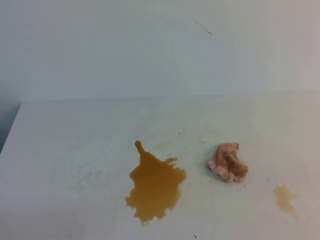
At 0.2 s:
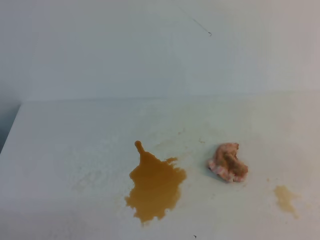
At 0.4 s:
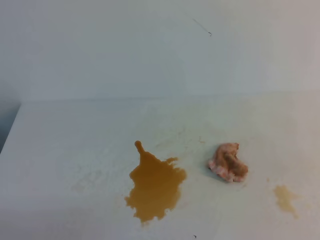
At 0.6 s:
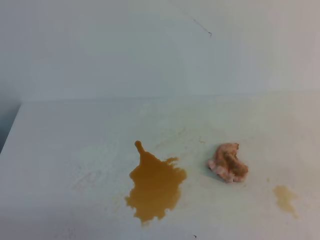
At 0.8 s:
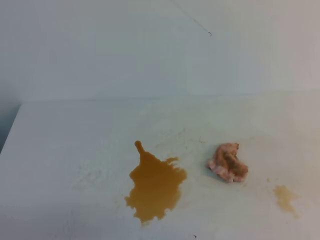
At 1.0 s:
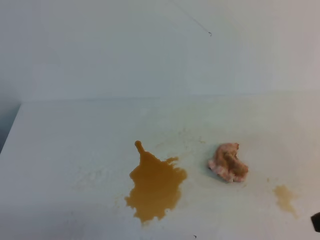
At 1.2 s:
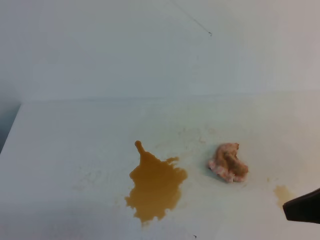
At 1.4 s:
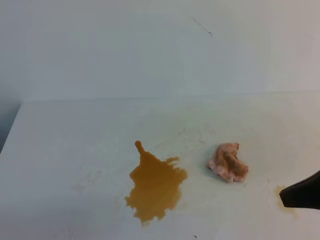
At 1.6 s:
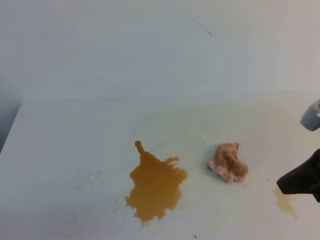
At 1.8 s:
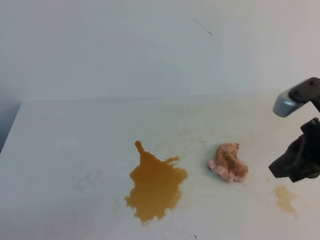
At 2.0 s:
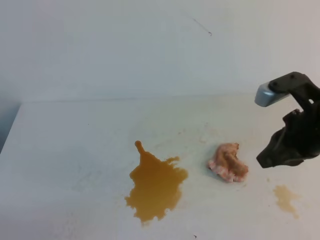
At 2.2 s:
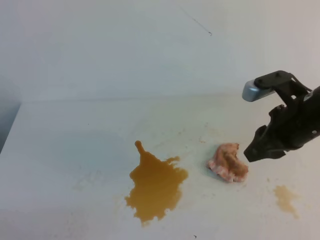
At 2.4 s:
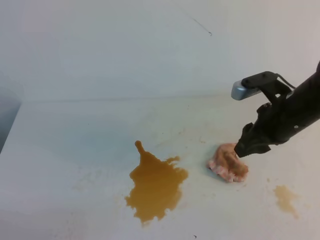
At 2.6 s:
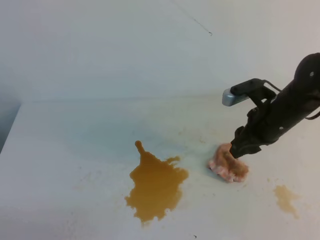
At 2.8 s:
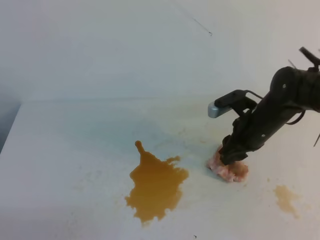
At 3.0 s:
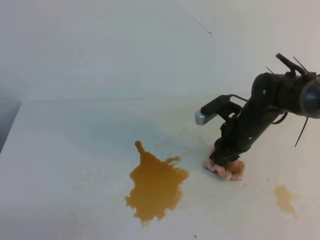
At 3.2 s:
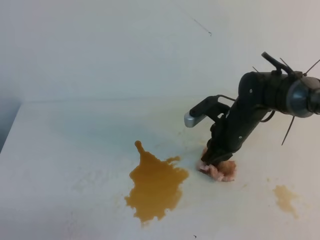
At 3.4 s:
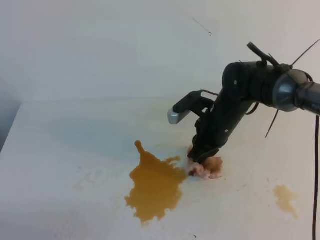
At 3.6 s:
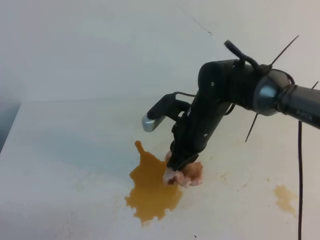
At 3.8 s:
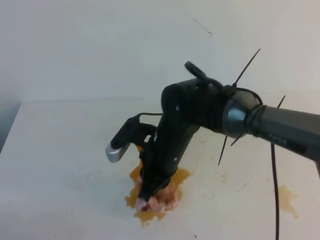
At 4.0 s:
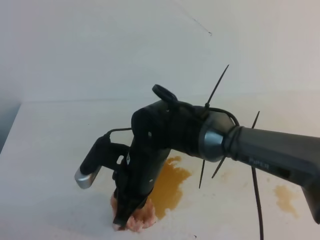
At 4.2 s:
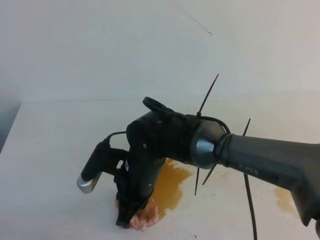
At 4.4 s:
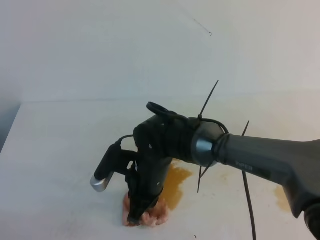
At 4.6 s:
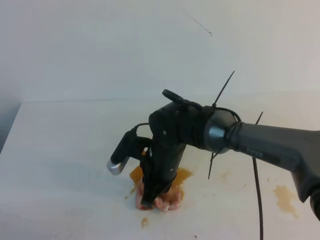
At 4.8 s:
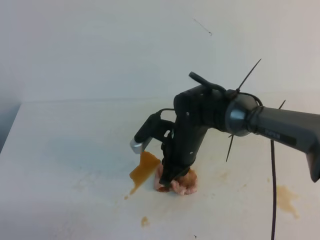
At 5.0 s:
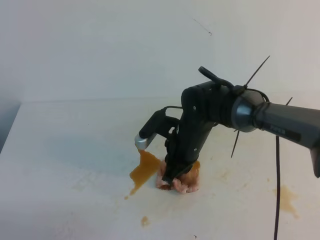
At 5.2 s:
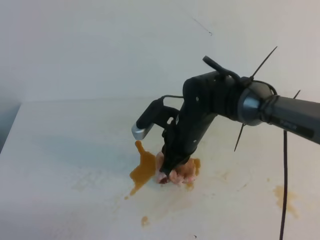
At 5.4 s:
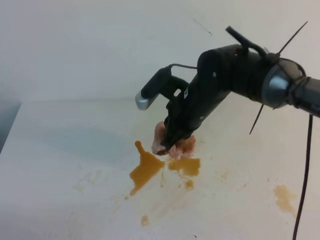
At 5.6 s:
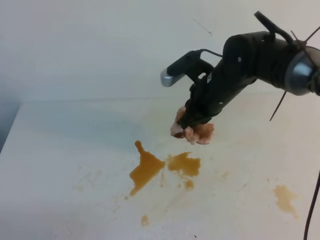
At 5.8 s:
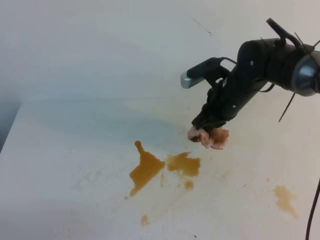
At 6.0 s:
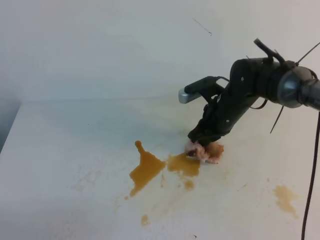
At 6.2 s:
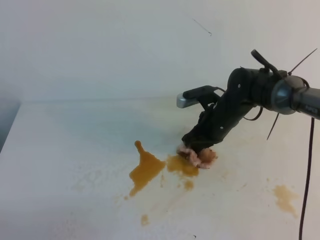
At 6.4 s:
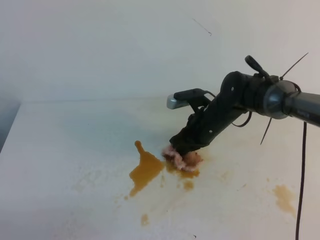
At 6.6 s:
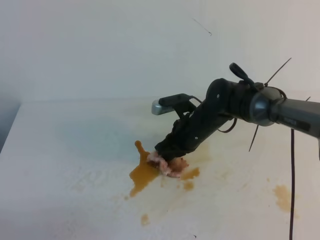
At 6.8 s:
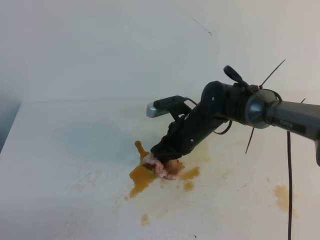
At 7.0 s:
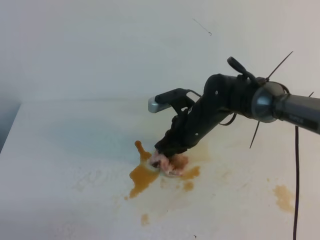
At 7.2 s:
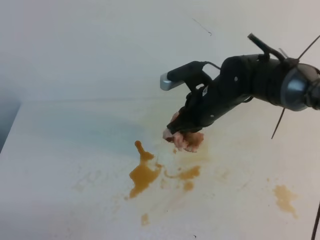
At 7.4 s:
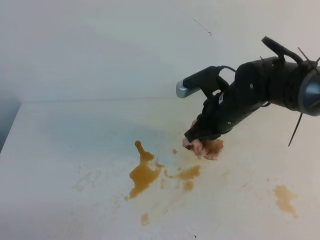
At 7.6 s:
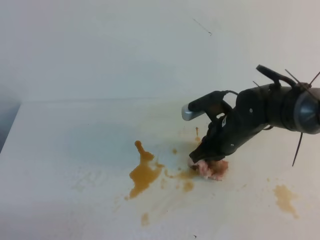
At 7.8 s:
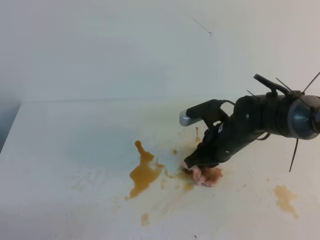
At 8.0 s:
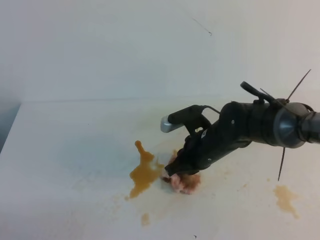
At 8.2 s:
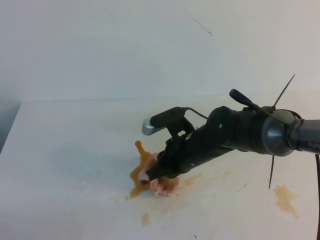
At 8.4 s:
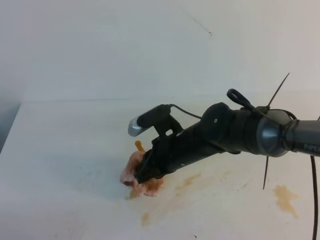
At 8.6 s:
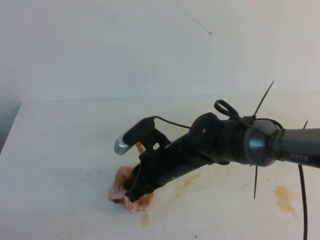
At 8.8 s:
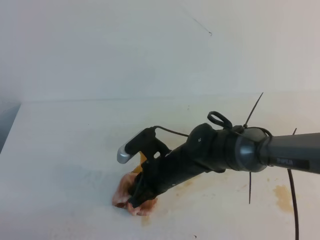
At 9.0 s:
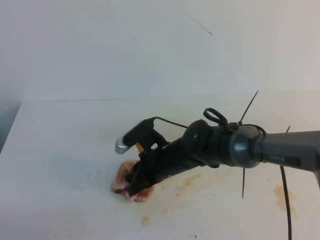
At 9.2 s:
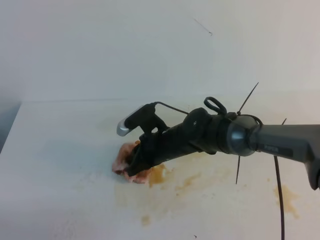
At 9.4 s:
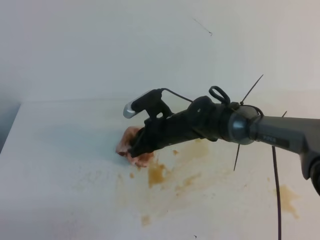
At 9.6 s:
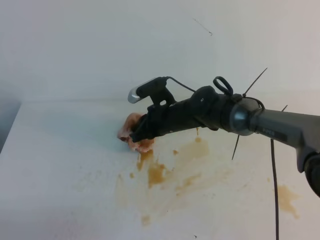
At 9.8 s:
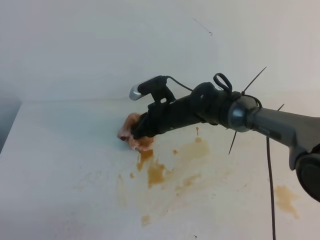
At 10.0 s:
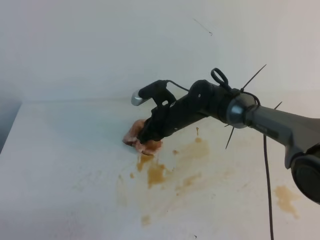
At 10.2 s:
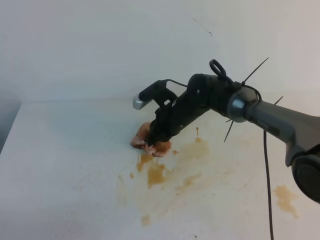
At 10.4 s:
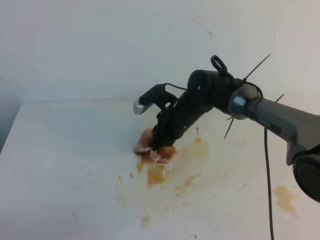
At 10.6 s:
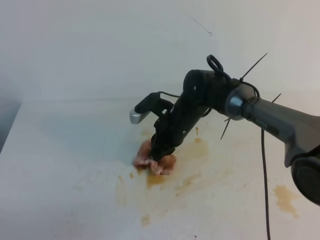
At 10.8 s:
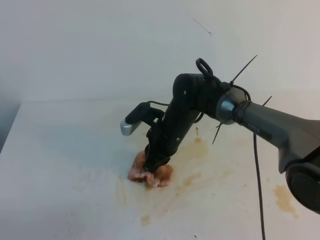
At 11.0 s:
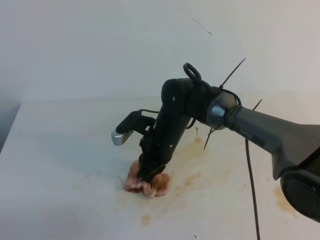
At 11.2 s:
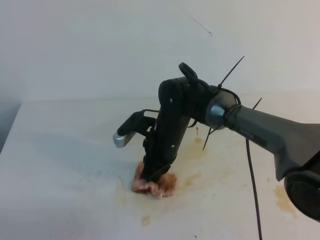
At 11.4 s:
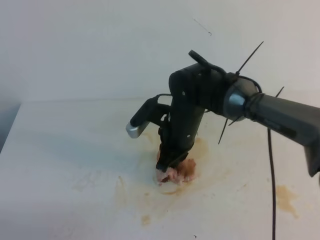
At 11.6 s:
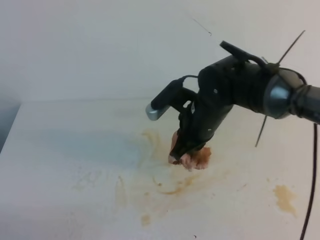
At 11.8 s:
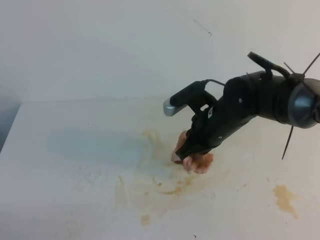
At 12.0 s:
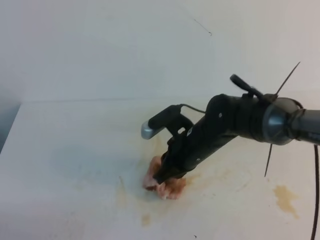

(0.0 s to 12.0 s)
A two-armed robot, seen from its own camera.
0.0 s - 1.6 s: The right gripper goes roughly 20 cm forward and to the left.
1.6 s - 3.0 s: The right gripper moves forward, downward and to the left, approximately 25 cm, and opens.
3.0 s - 4.4 s: The right gripper goes roughly 20 cm to the left and backward, and closes up.
4.4 s - 6.0 s: The right gripper is displaced to the right and forward by roughly 20 cm.
6.0 s - 7.6 s: The right gripper travels backward by roughly 5 cm.
7.6 s - 9.0 s: The right gripper is displaced to the left by about 10 cm.
9.0 s - 10.4 s: The right gripper travels forward by about 10 cm.
10.4 s - 12.0 s: The right gripper shifts some 10 cm backward.

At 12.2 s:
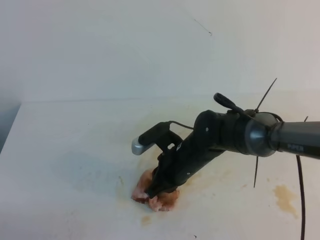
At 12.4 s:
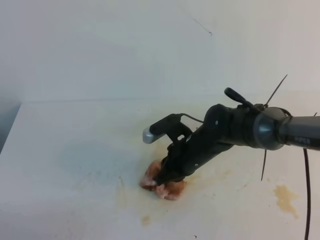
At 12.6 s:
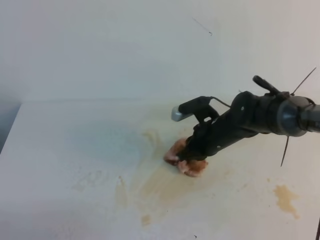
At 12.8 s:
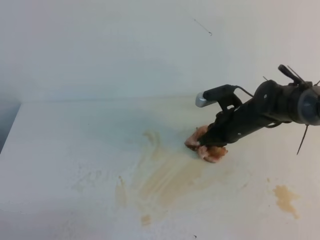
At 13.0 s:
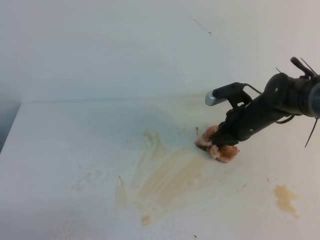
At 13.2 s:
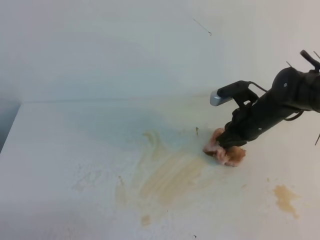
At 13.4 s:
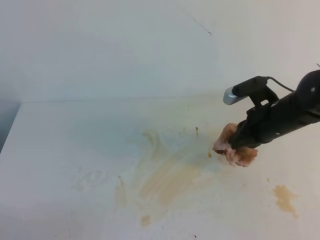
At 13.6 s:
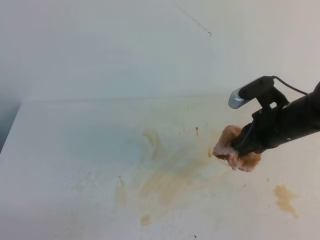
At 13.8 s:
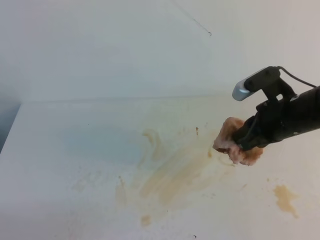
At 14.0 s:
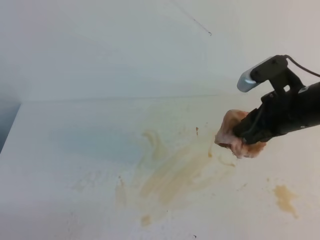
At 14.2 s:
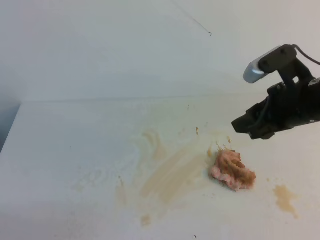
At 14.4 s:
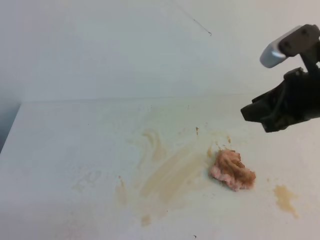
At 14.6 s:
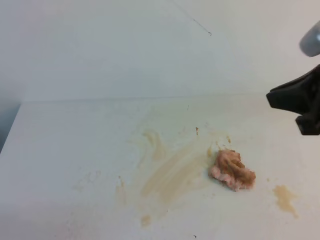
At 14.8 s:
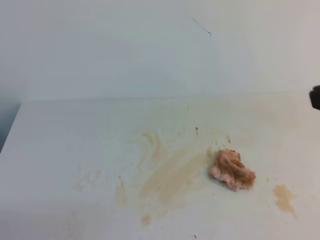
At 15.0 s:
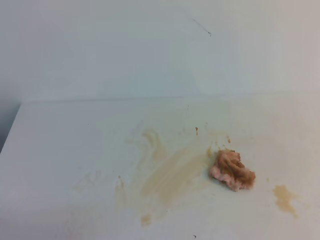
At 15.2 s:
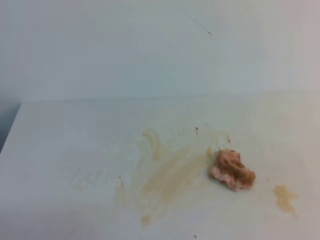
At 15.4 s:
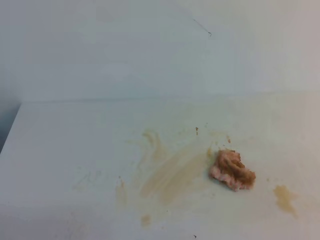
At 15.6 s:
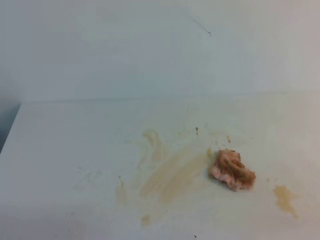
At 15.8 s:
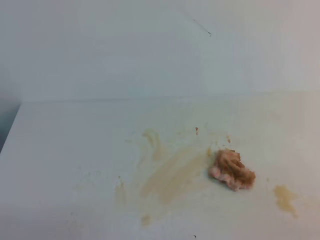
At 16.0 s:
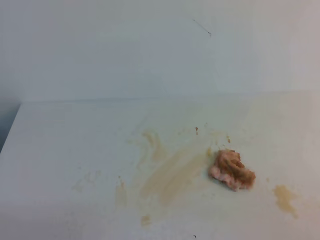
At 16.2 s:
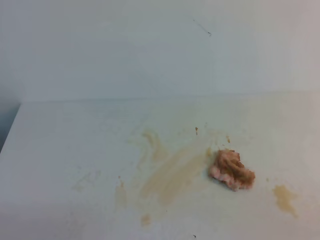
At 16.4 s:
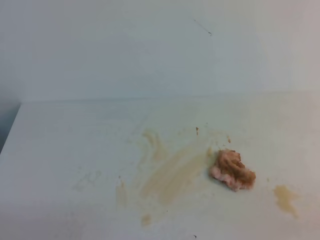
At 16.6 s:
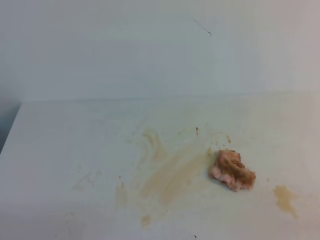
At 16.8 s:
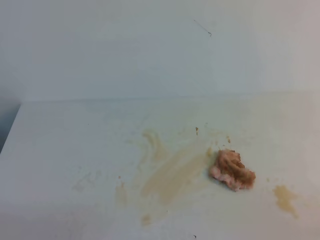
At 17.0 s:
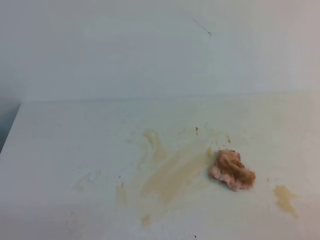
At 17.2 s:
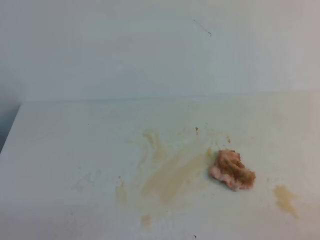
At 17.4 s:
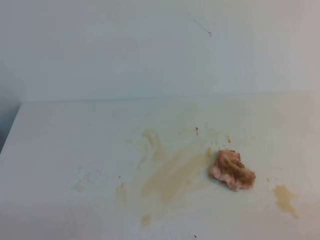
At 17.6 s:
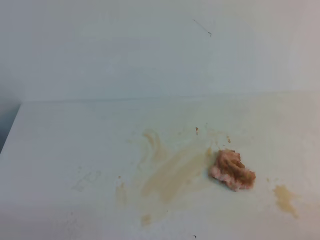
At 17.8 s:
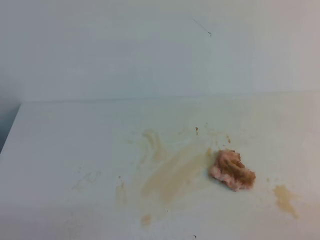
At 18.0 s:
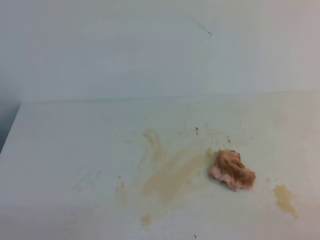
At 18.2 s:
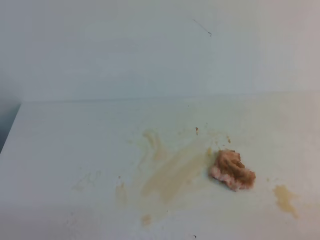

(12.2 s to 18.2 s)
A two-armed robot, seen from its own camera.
12.2 s - 13.8 s: The right gripper shifts about 20 cm to the right and upward.
13.8 s - 15.2 s: The right gripper goes approximately 25 cm backward, and opens and closes again.
